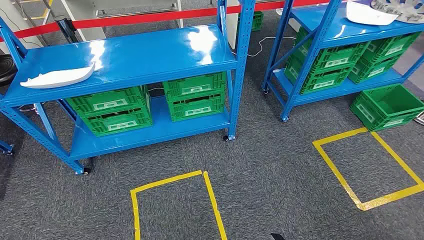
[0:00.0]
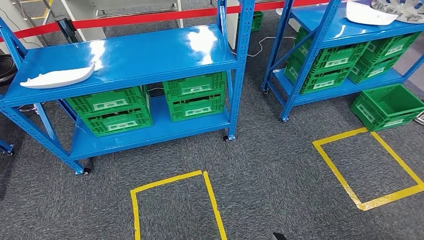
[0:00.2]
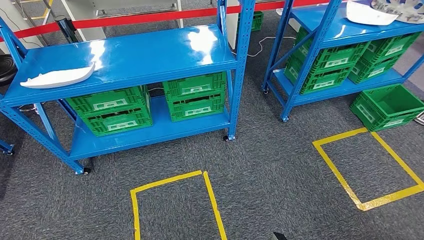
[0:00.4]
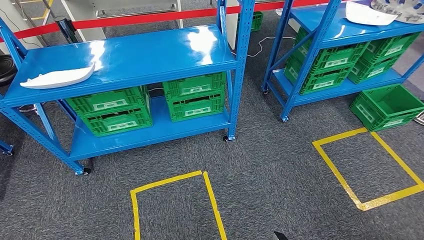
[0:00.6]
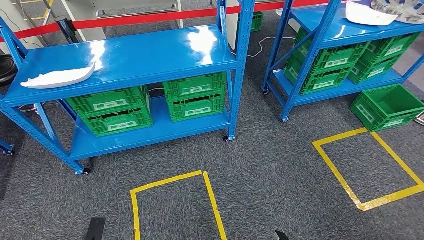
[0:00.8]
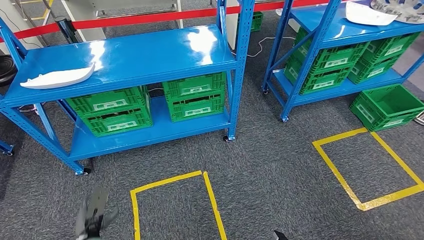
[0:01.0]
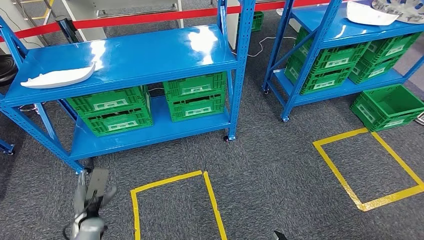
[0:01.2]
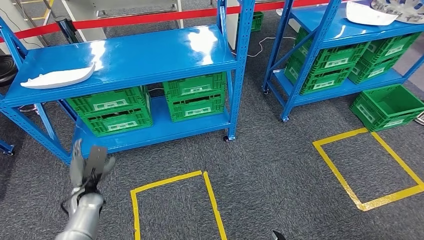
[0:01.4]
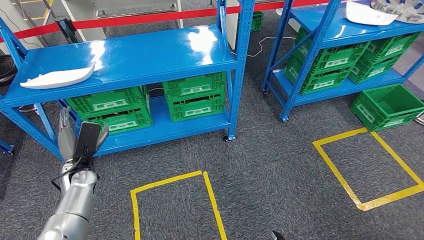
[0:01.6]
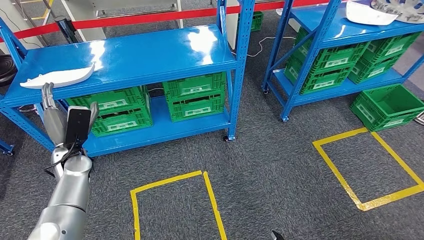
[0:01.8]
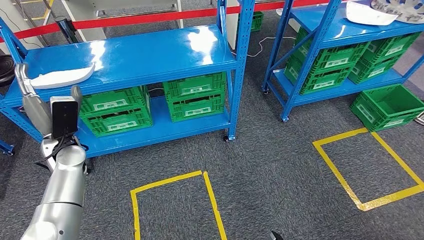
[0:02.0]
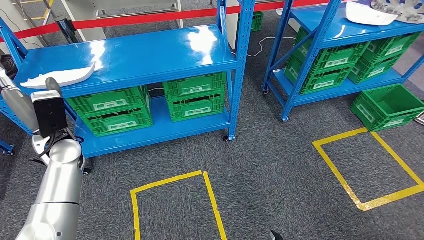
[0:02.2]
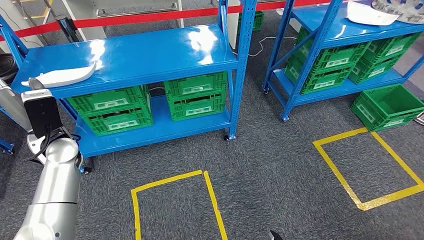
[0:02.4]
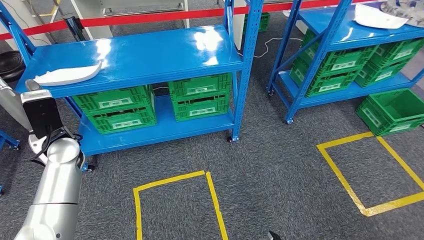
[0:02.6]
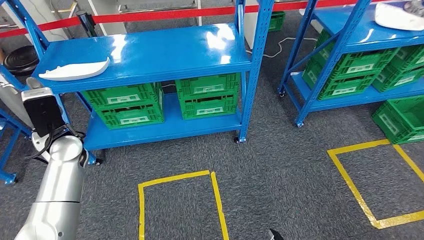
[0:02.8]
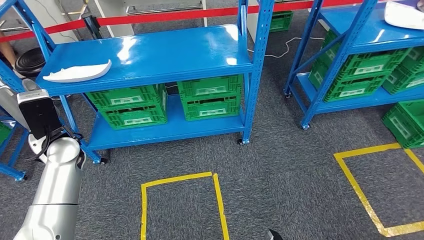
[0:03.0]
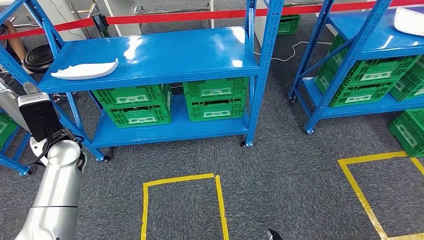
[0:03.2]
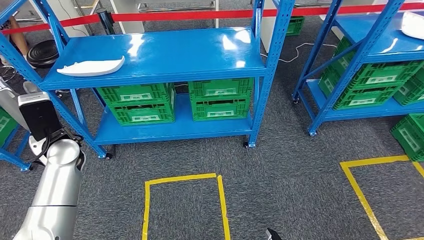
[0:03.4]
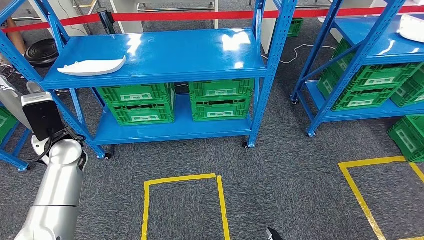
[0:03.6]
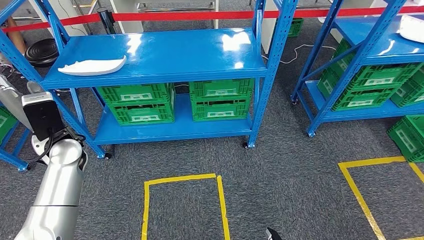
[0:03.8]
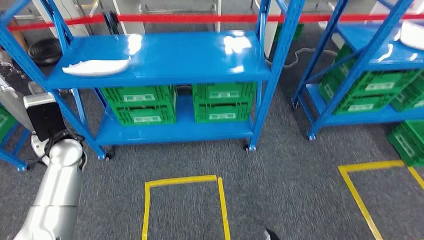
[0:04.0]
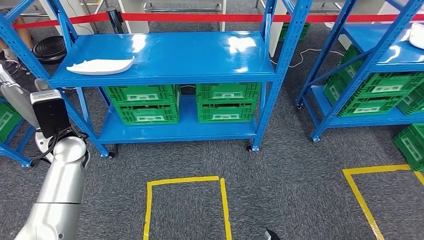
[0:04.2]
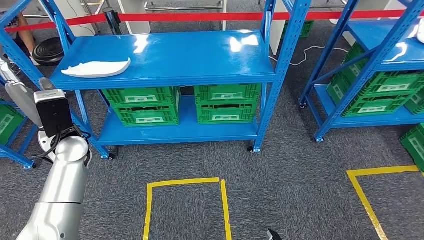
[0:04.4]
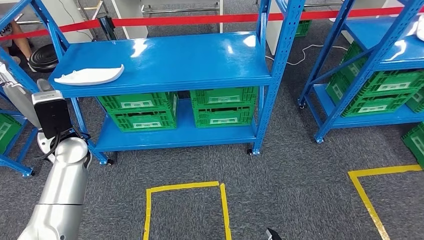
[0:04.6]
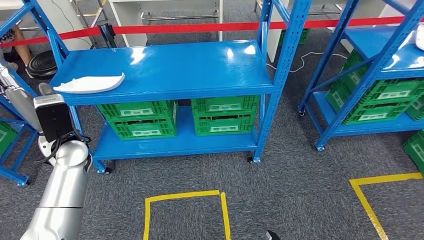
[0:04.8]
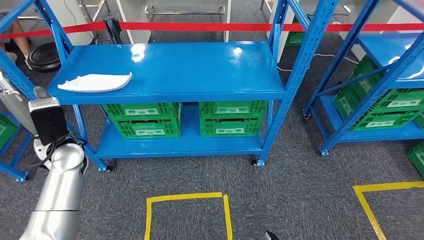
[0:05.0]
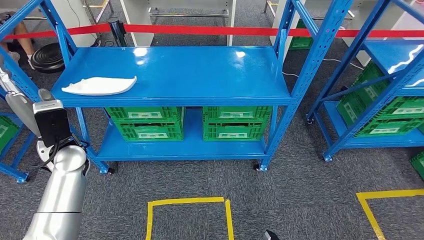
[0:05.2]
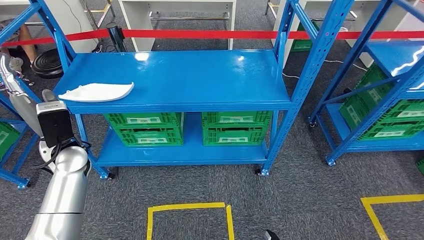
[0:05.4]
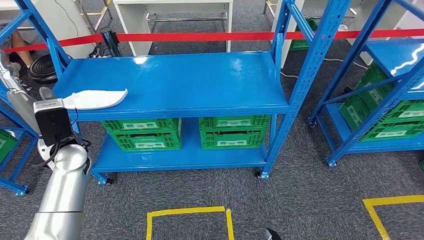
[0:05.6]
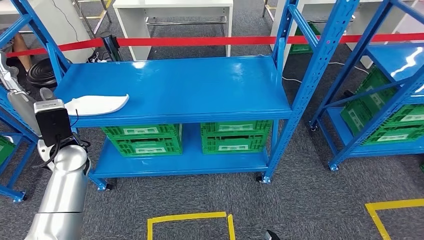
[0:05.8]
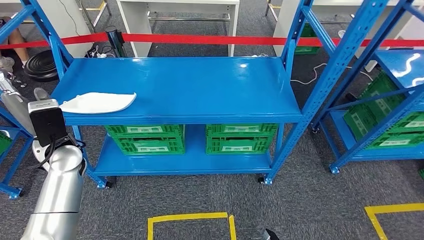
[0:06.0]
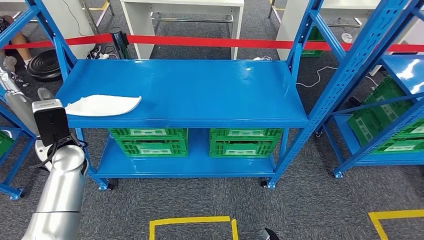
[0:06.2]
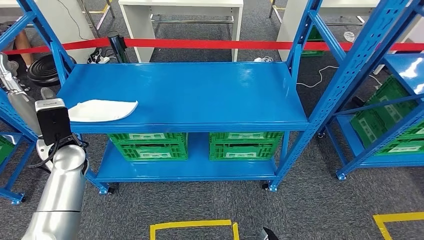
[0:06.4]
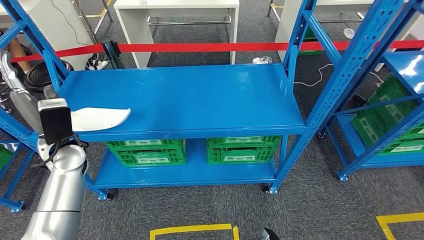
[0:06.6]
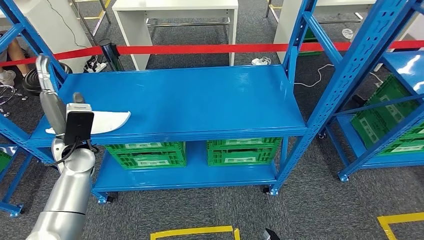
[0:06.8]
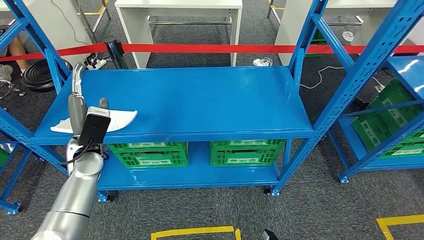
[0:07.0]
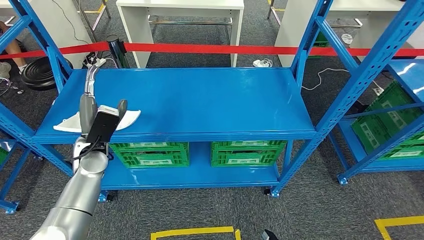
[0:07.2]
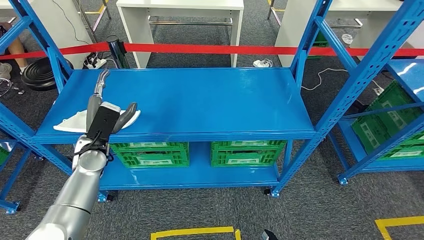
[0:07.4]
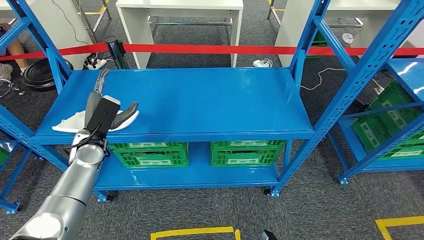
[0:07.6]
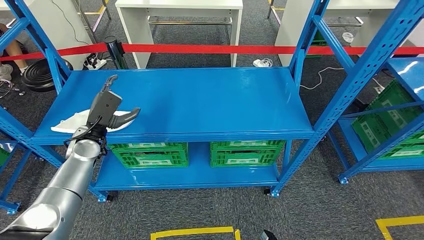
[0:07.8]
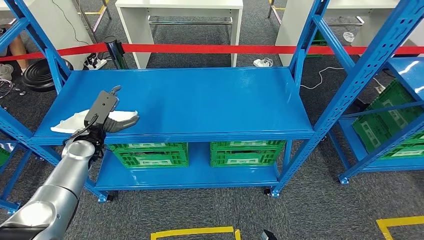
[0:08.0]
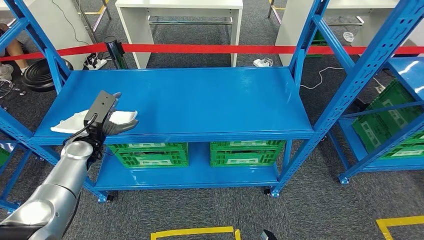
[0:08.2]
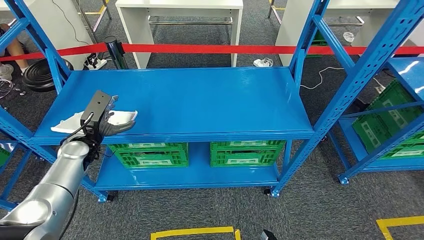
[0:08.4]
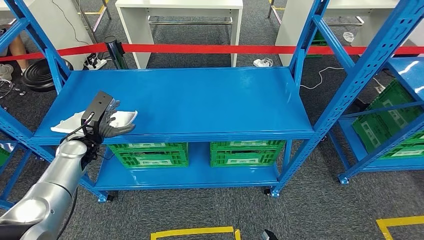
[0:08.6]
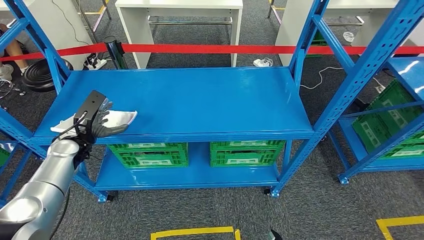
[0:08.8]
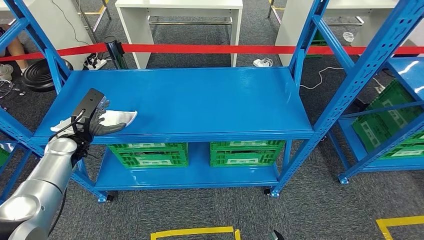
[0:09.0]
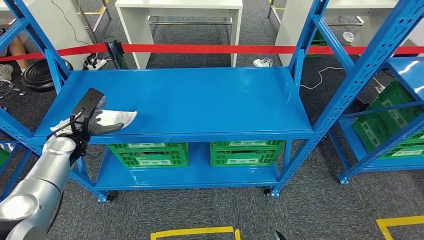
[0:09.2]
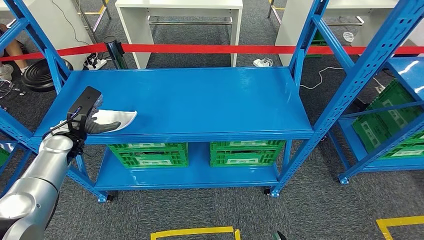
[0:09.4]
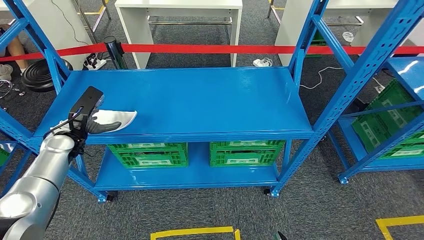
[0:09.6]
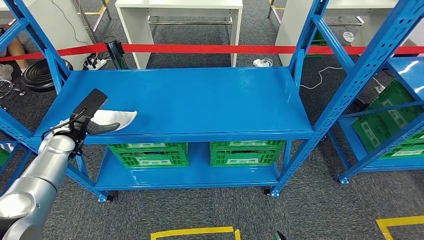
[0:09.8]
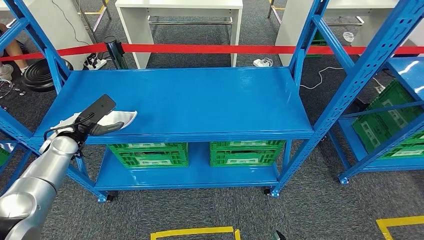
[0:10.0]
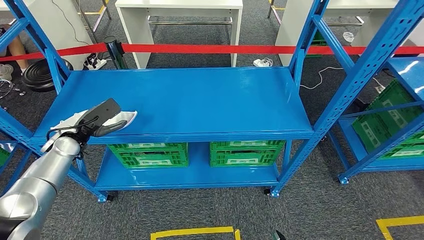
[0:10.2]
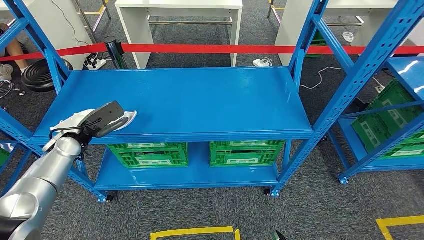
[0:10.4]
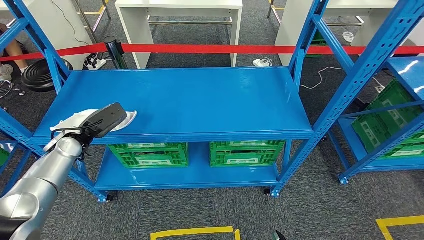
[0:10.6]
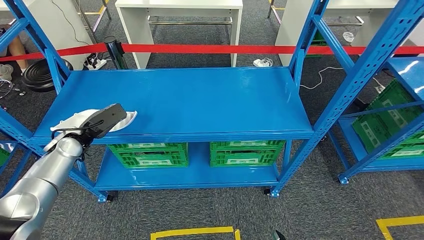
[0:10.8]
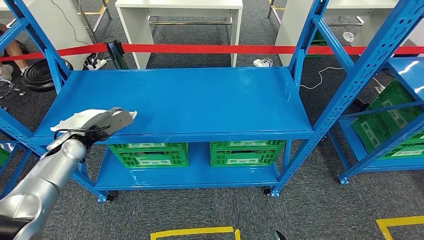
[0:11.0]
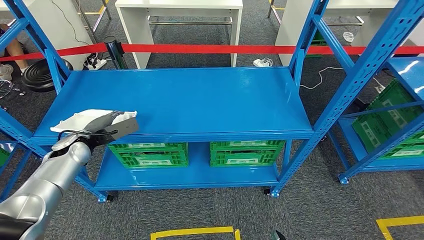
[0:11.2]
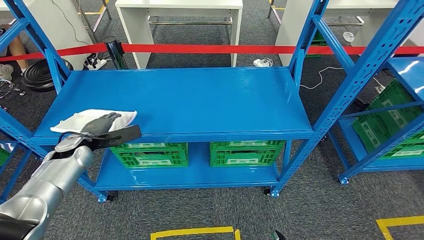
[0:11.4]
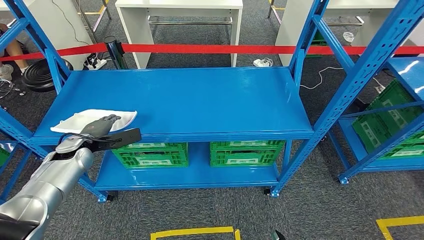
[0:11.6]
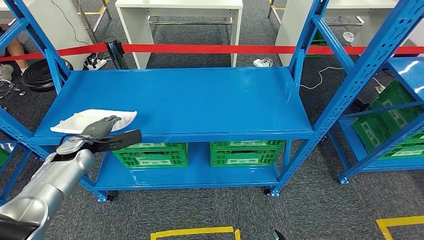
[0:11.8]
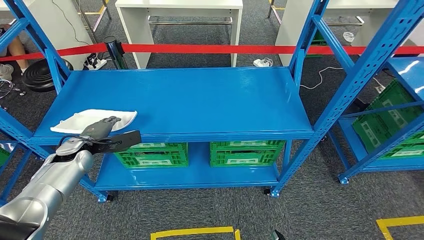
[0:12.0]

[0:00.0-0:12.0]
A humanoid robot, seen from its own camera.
0:07.6 to 0:09.0: The left hand is displaced to the left by roughly 5 cm.

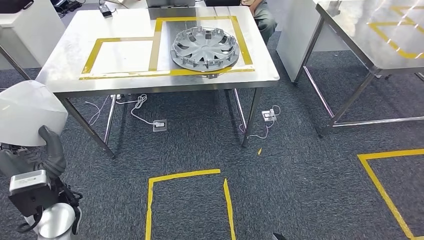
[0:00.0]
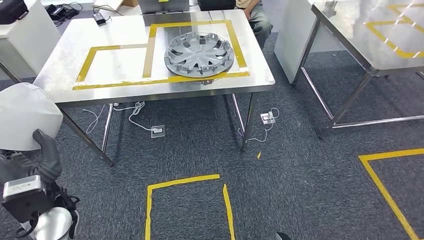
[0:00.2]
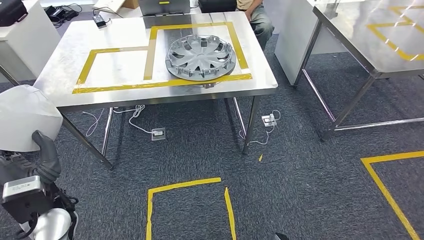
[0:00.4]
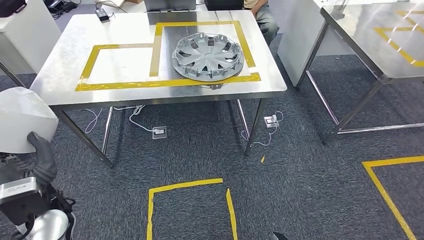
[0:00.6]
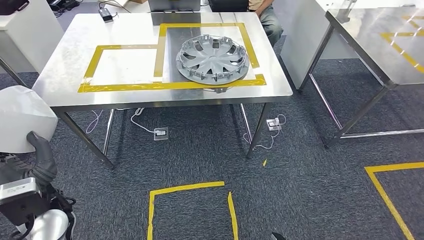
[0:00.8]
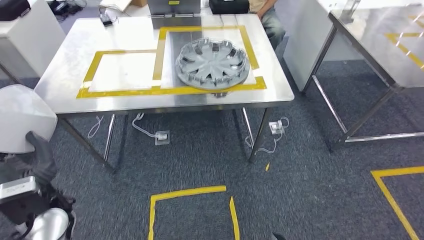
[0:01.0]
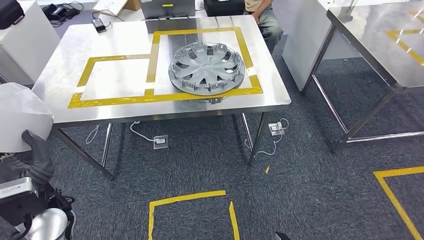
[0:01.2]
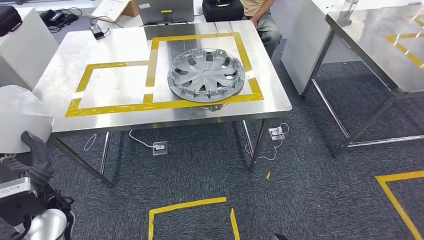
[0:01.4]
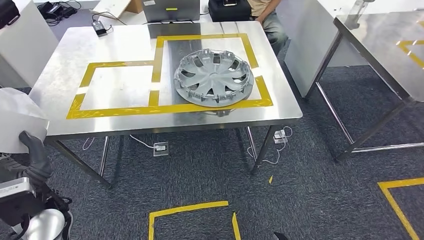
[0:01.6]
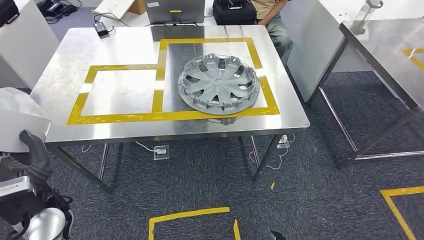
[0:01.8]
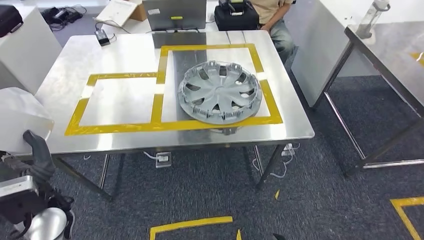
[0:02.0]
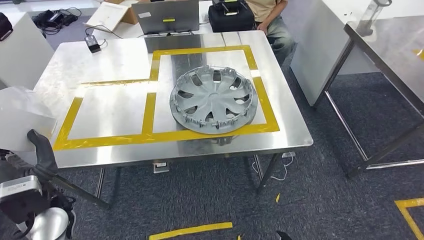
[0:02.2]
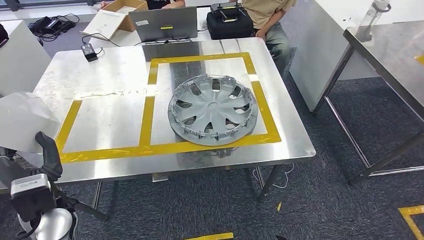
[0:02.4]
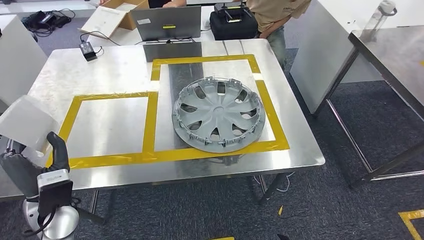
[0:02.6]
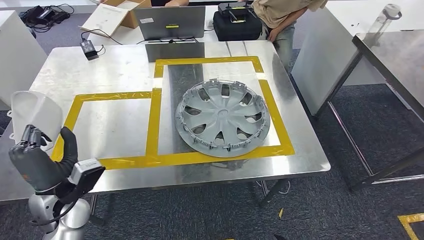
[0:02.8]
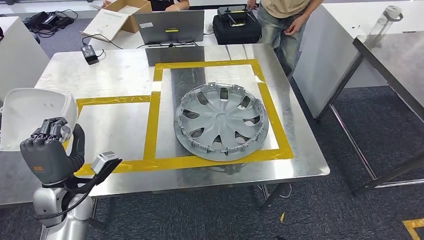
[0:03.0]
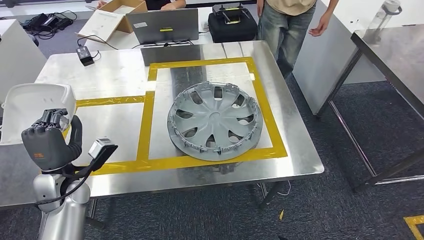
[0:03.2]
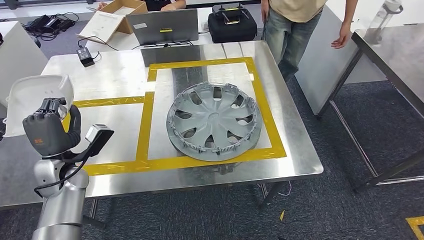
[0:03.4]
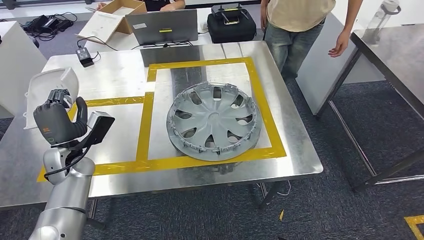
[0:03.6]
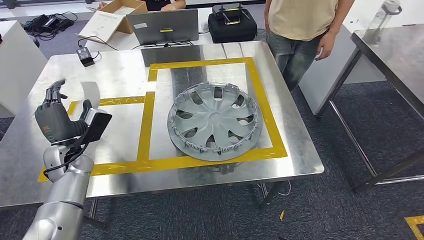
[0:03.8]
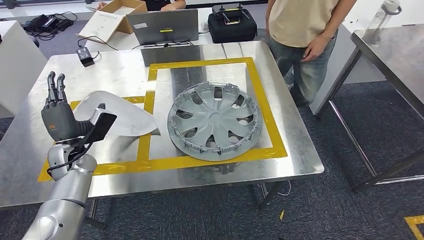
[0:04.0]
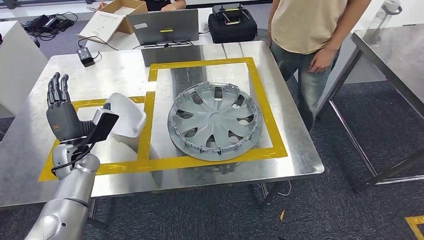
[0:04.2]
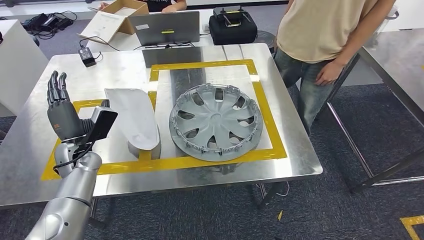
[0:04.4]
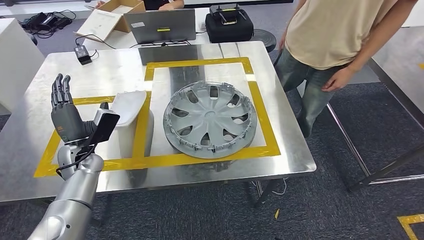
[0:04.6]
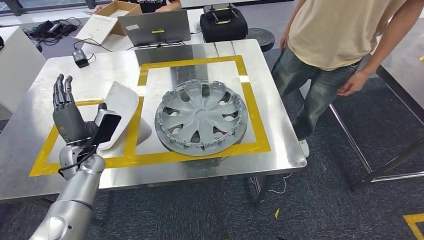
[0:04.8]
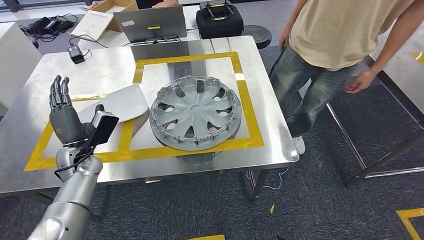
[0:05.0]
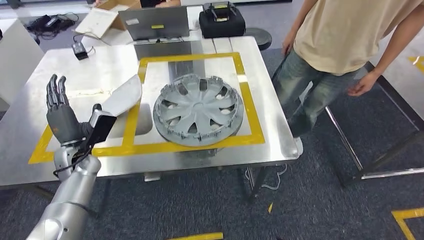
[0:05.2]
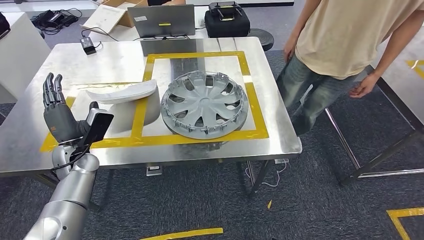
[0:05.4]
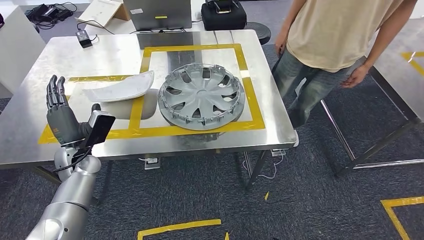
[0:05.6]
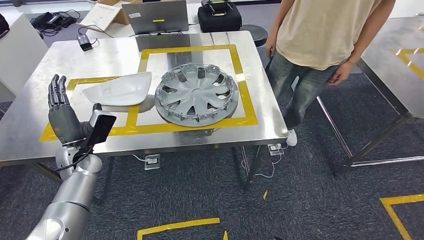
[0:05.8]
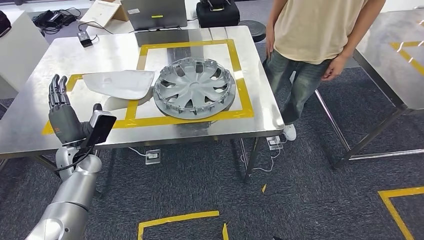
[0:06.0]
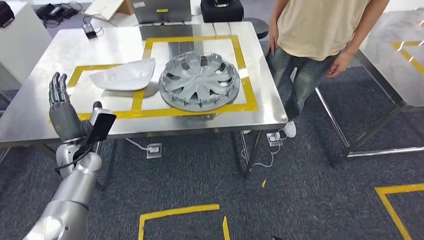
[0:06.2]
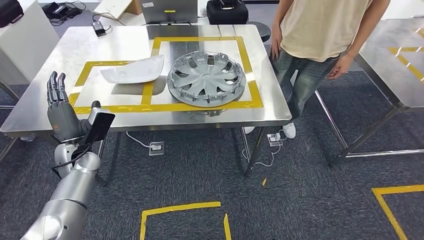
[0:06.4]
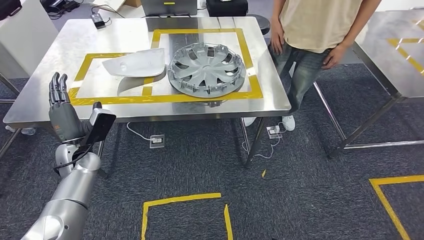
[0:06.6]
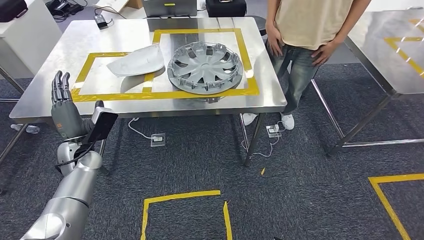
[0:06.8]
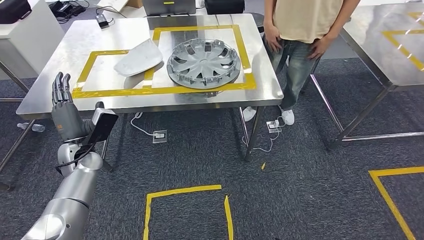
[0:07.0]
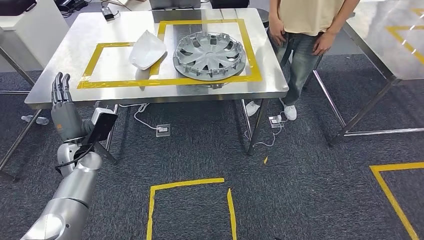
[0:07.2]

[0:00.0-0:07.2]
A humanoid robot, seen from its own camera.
Step, 0:00.0 to 0:02.2: Move the small component to the workbench.
Step, 0:02.4 to 0:05.6: Insert the small component into the corresponding slot on the workbench.
